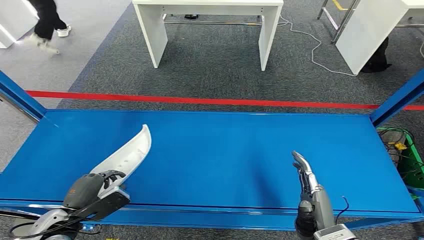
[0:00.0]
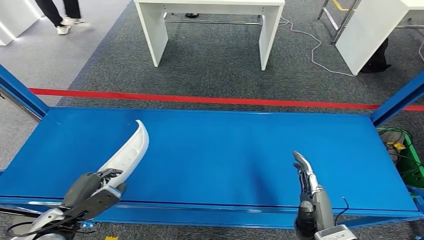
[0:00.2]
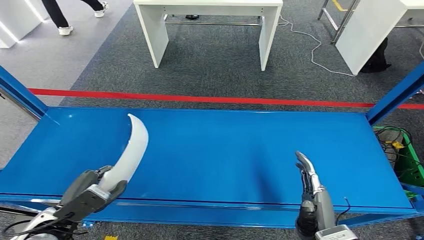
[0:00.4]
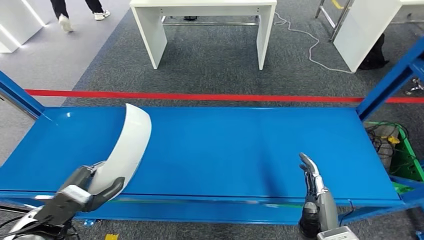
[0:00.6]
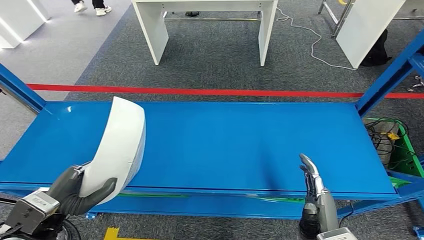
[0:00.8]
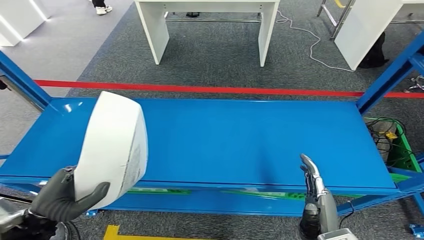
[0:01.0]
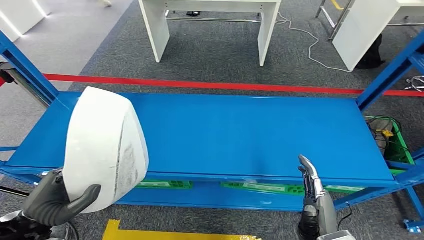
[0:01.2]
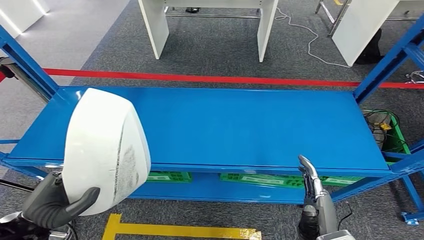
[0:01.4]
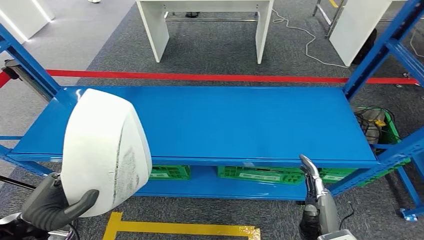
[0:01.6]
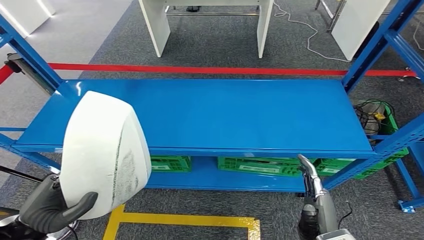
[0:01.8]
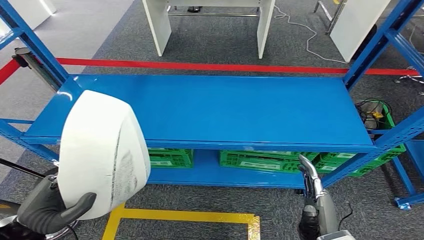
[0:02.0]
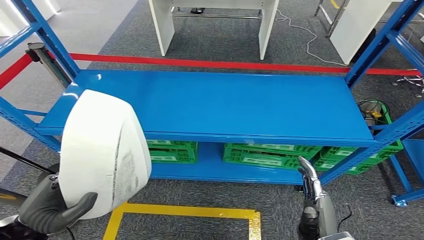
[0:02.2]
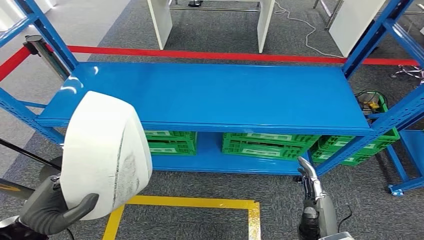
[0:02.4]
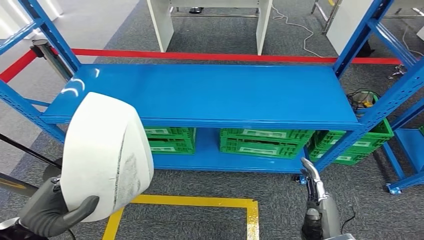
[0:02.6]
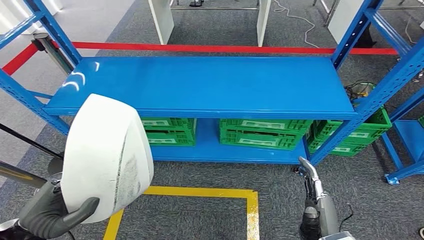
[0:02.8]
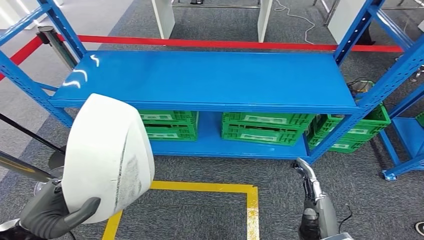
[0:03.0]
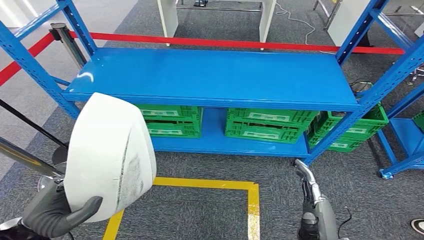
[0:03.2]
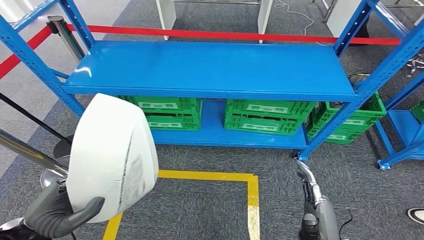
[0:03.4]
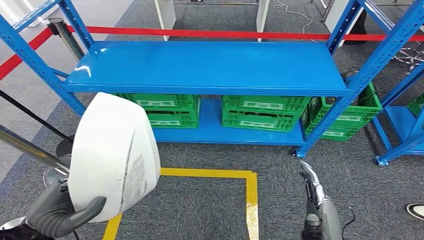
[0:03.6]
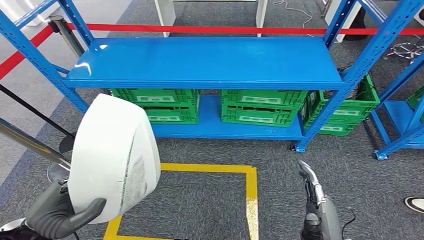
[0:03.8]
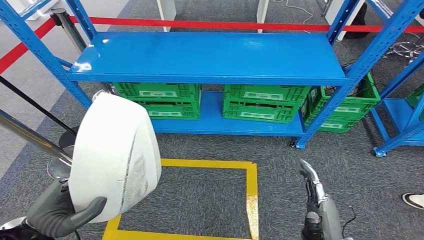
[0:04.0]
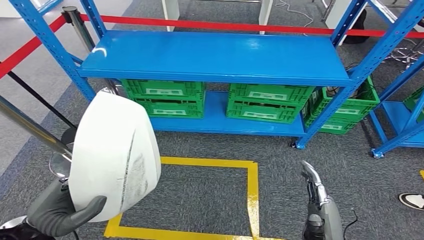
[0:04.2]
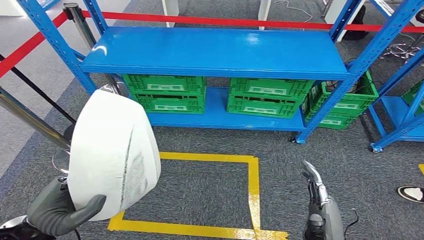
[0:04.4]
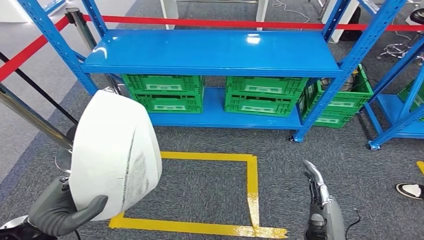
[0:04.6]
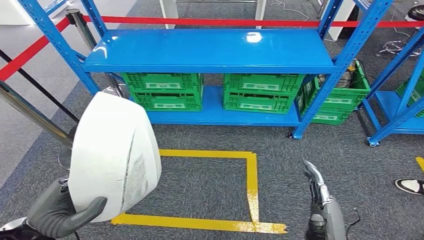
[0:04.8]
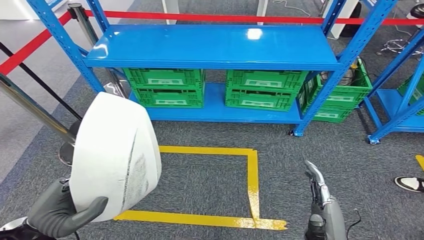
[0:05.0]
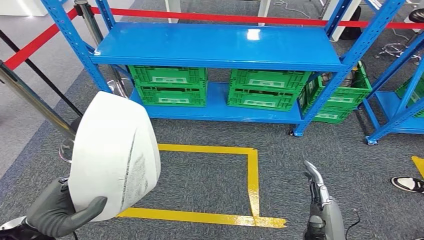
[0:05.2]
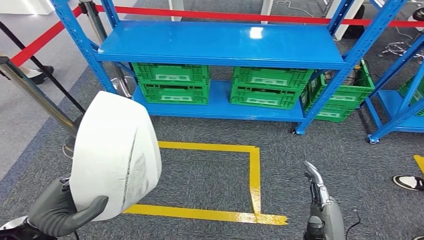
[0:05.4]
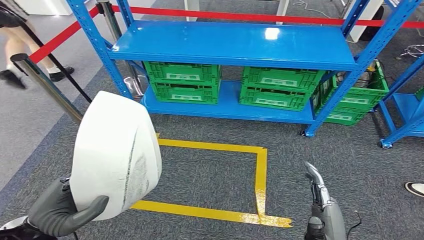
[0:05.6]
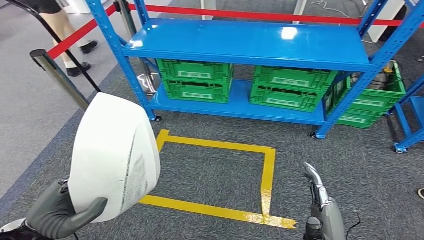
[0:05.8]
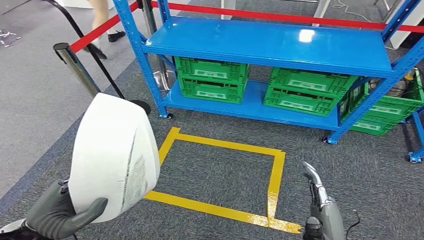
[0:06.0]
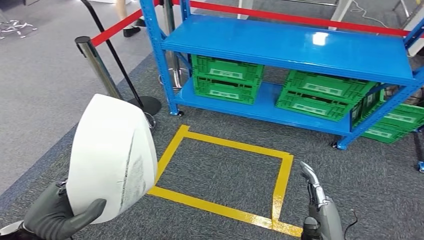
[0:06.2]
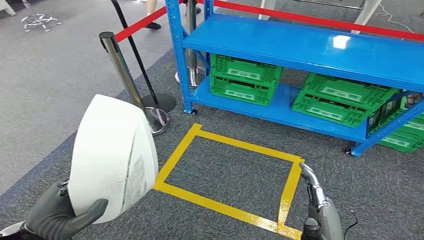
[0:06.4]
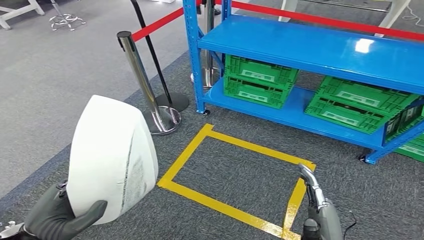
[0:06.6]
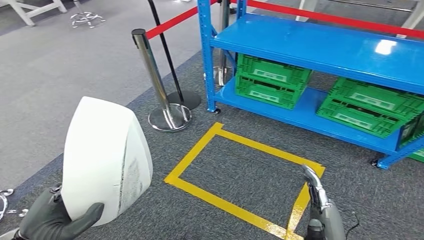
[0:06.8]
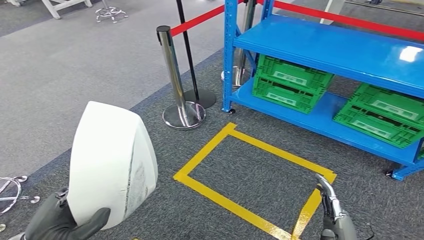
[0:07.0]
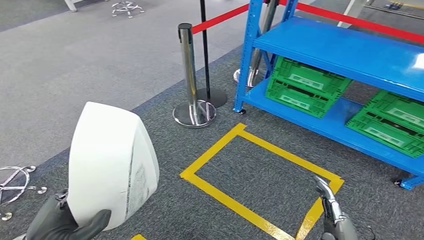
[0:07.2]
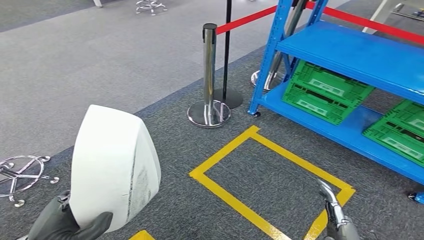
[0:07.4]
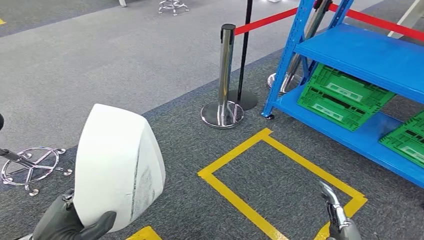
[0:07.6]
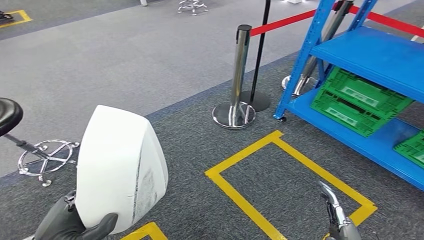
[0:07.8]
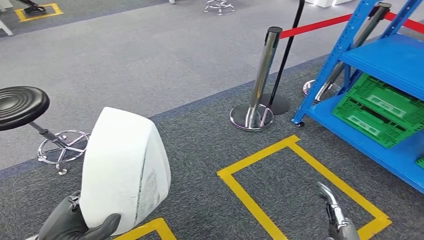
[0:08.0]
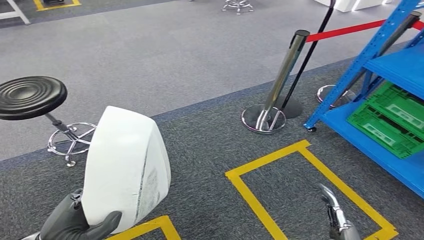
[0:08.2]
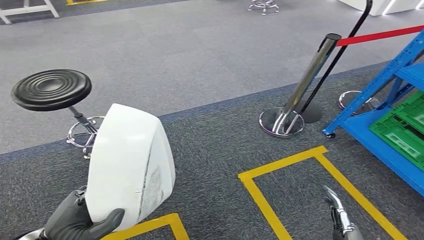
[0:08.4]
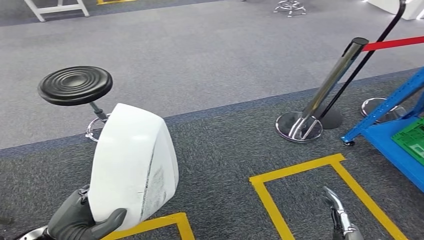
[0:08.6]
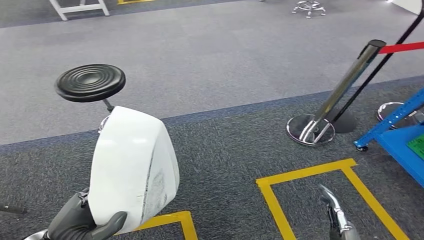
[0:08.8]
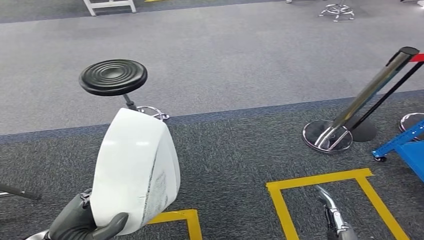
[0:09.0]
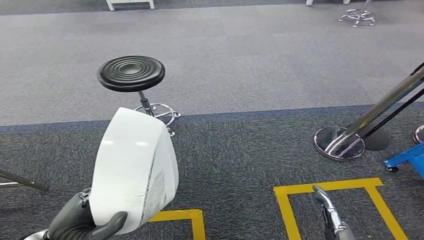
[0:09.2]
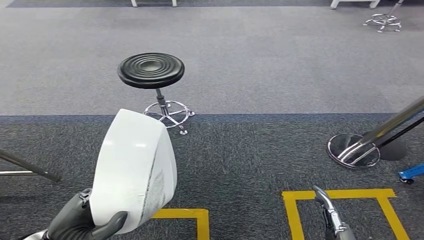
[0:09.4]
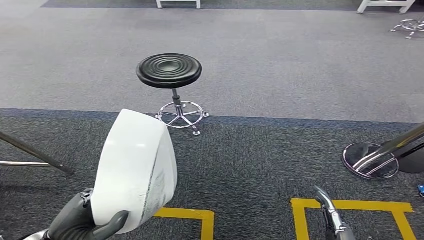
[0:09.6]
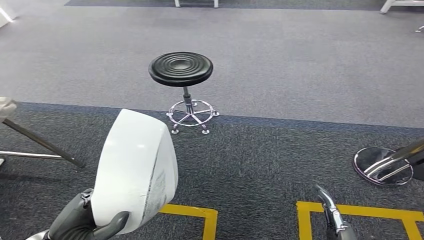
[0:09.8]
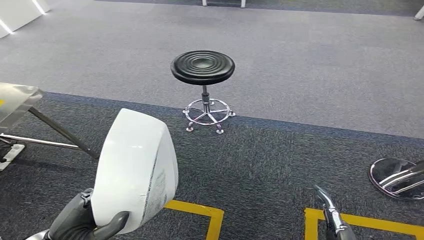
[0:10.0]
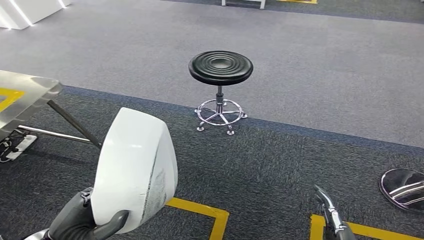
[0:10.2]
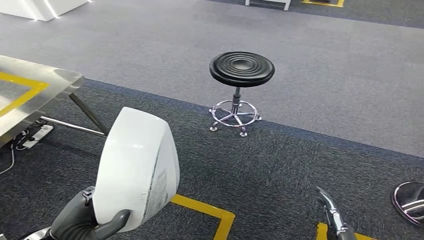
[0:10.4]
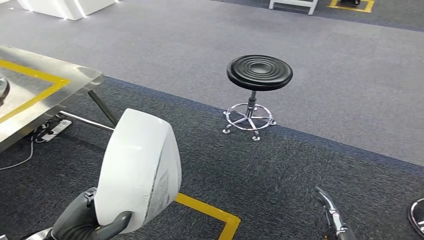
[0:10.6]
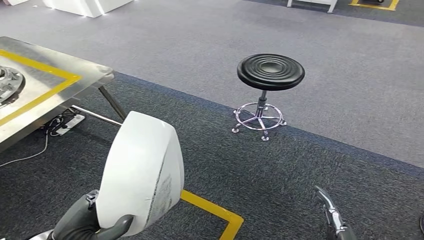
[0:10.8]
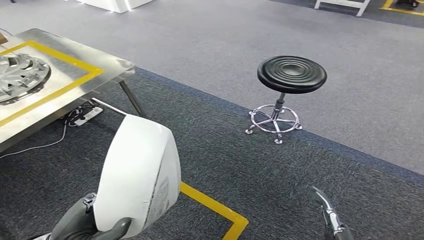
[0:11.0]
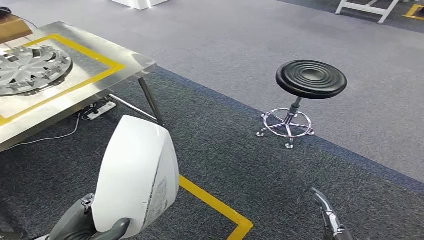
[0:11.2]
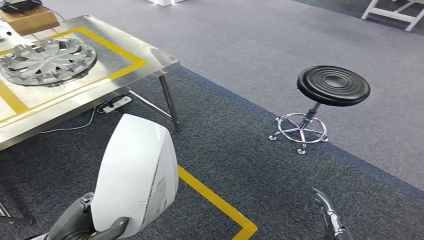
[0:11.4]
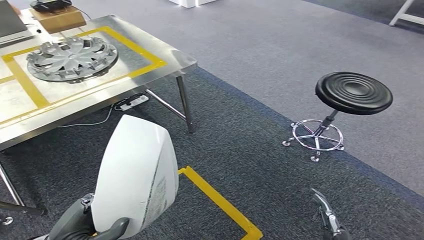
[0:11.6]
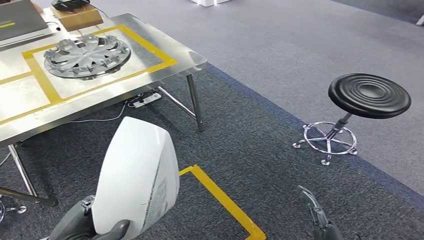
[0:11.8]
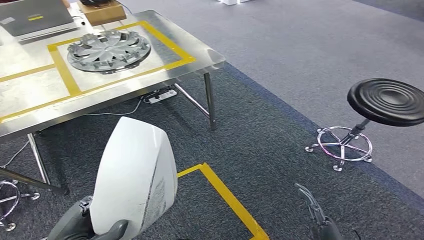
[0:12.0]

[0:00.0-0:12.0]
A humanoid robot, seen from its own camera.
Step, 0.0 to 8.4 s: Pick up the small parts from the shelf.

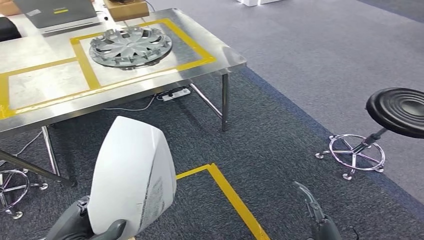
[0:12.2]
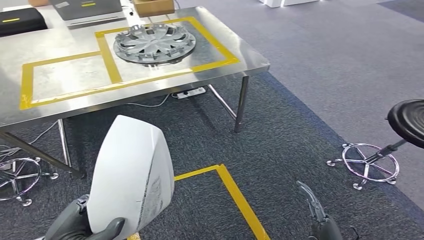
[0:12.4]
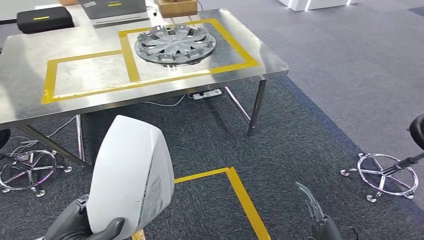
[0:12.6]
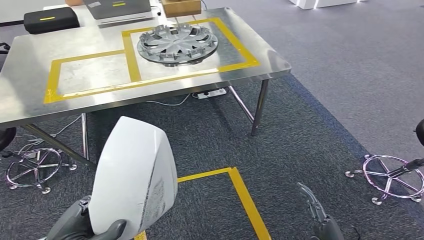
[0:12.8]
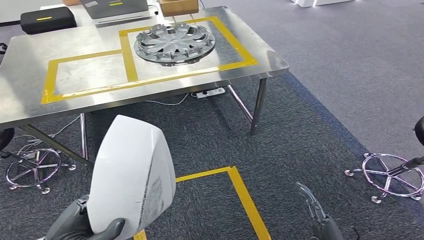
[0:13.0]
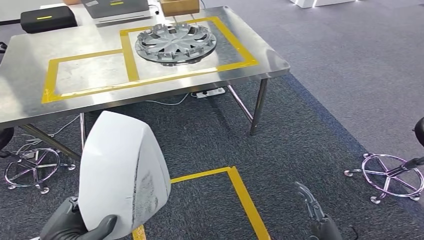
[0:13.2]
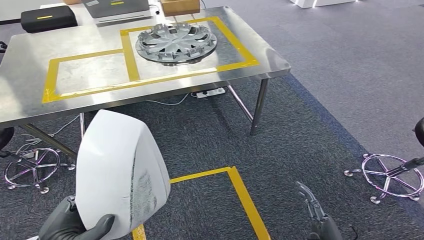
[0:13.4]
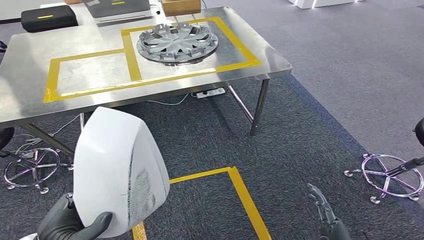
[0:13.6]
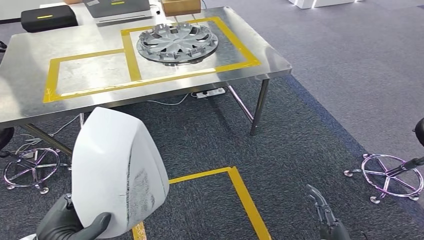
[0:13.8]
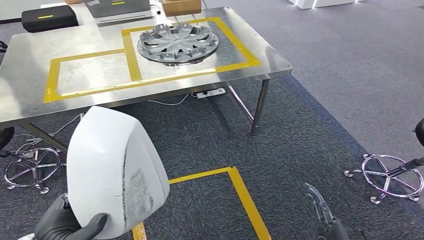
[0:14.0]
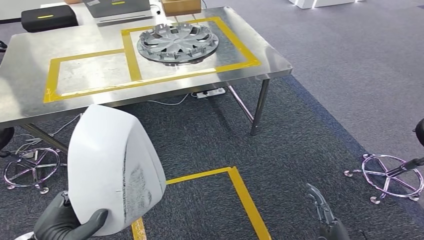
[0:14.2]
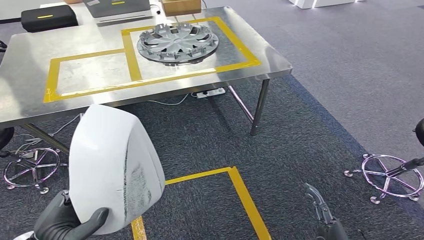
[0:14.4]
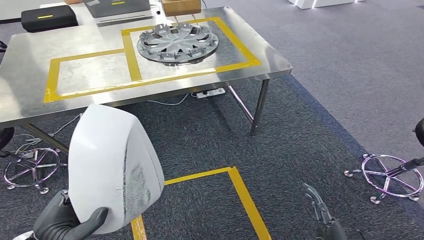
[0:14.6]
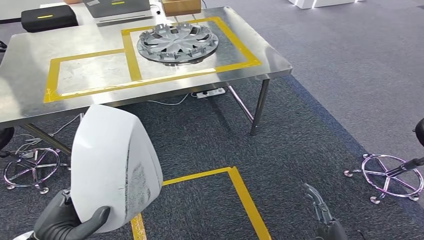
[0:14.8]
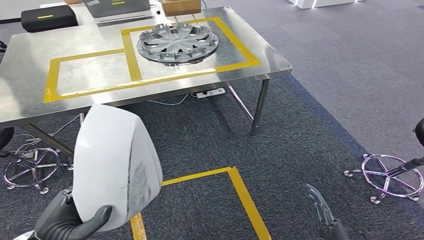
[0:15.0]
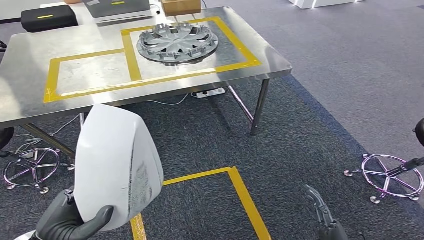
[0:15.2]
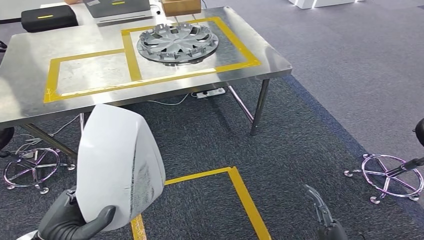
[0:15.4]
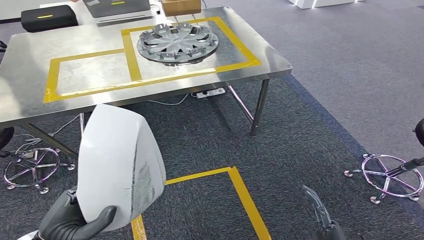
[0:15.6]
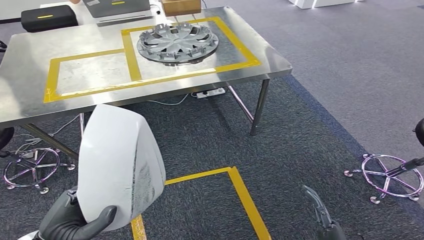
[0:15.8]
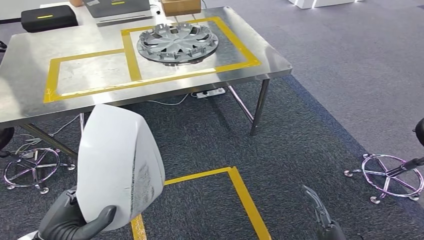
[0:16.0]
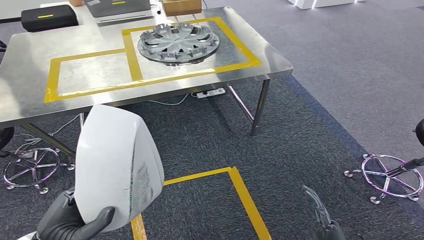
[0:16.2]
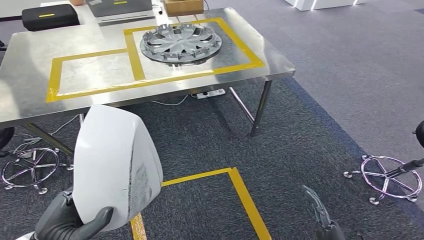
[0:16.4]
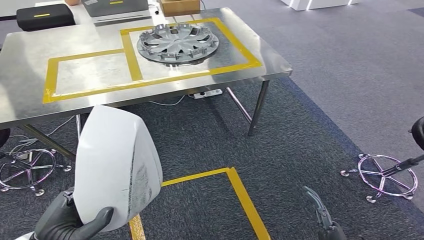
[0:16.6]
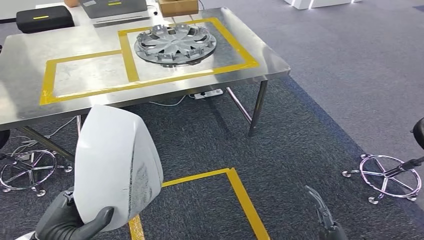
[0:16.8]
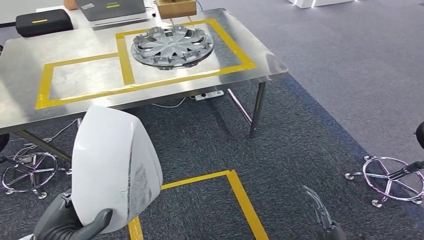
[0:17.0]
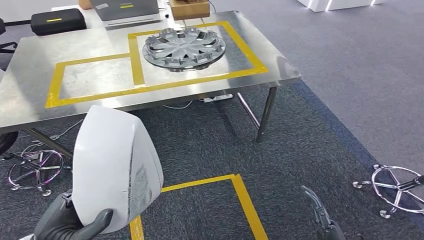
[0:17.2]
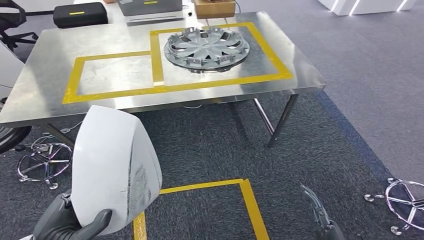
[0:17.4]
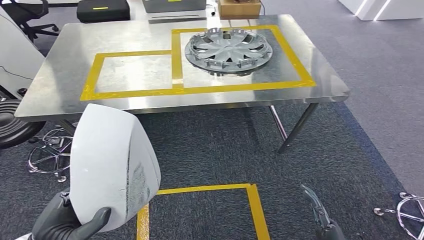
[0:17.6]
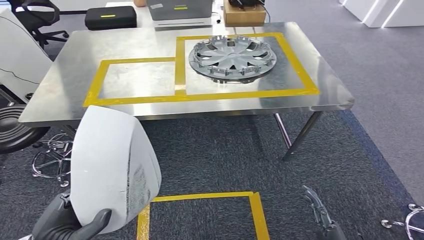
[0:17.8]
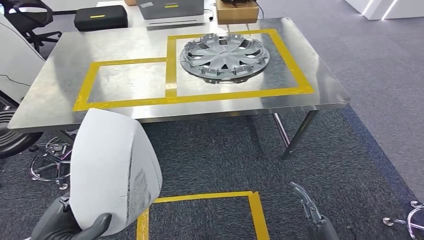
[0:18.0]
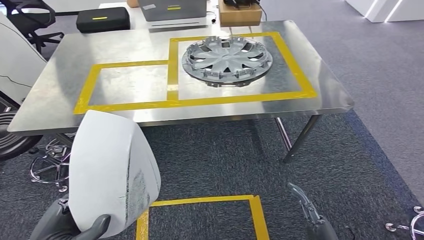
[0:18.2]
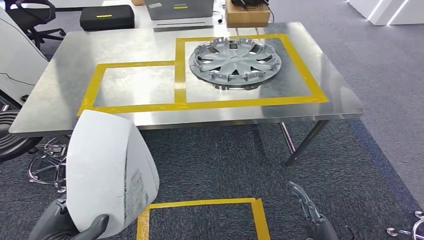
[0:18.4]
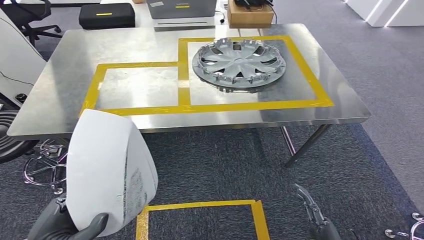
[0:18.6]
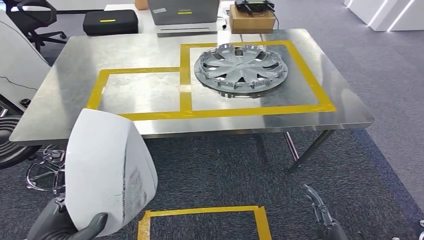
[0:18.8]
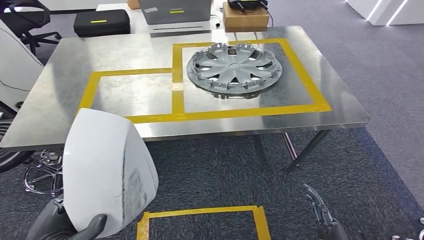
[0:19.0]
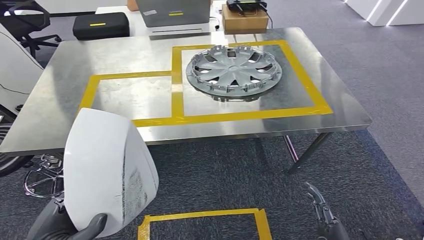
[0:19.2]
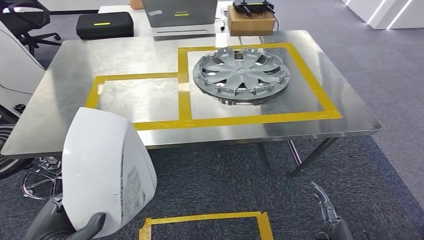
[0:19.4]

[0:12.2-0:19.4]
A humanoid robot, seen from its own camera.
Step, 12.2 to 15.0 s: Move the small parts to the workbench.
13.6 to 15.0 s: The hands move only a little.
15.0 to 16.6 s: Both hands stay about where they are.
